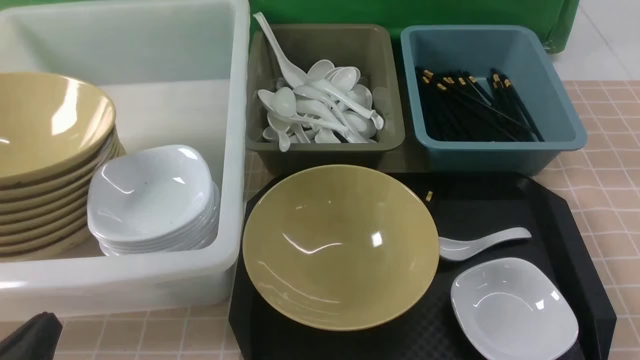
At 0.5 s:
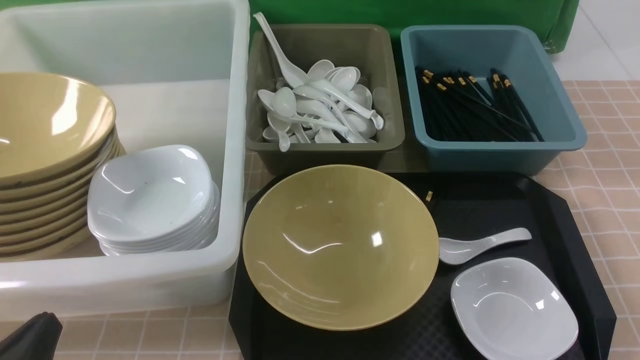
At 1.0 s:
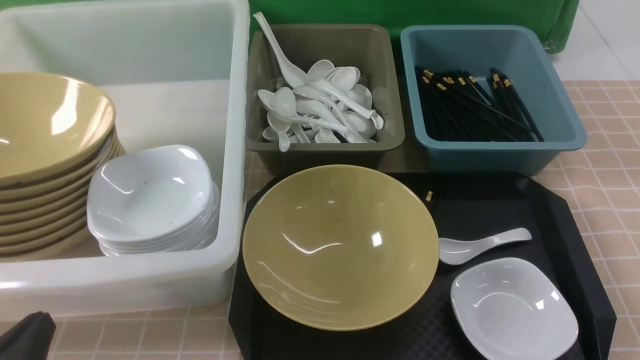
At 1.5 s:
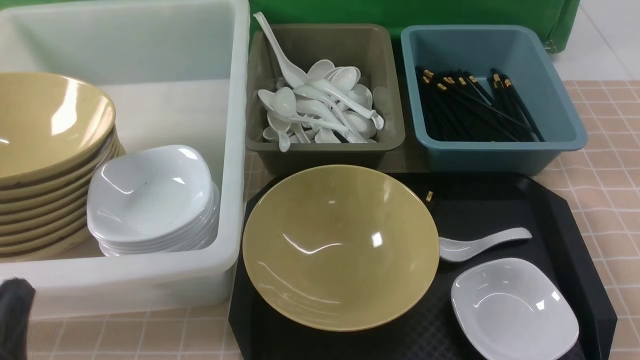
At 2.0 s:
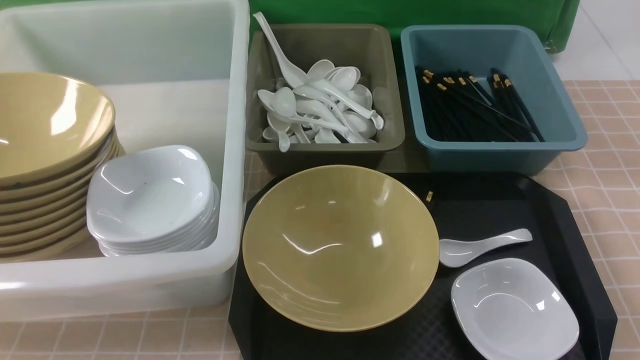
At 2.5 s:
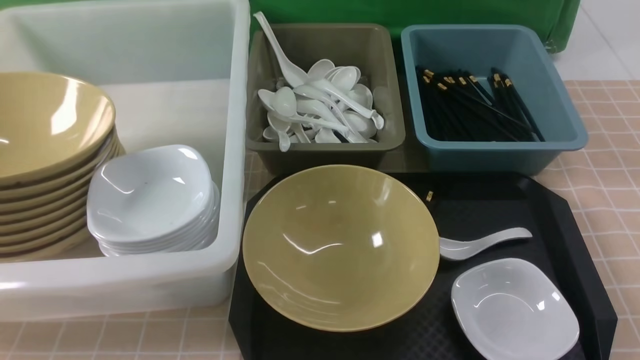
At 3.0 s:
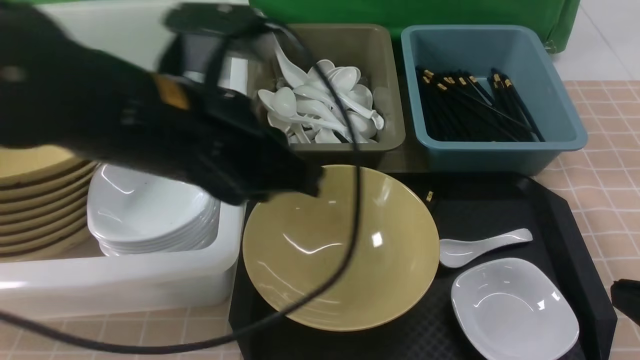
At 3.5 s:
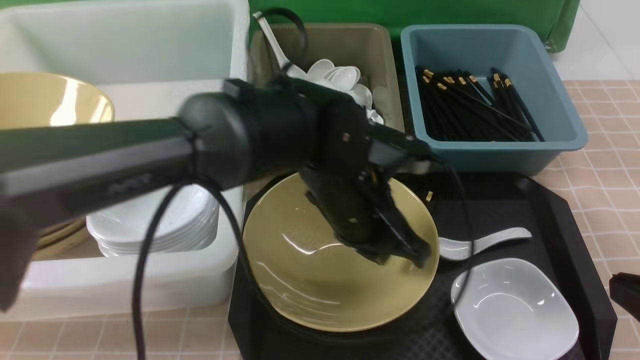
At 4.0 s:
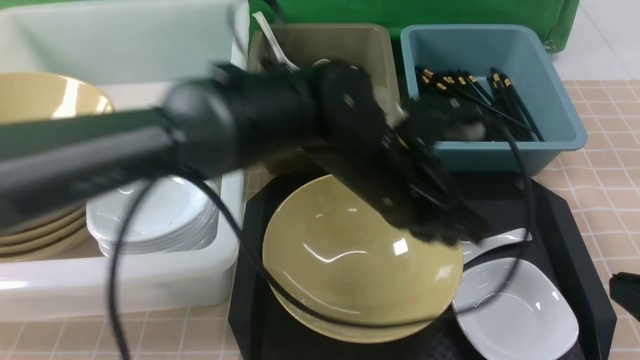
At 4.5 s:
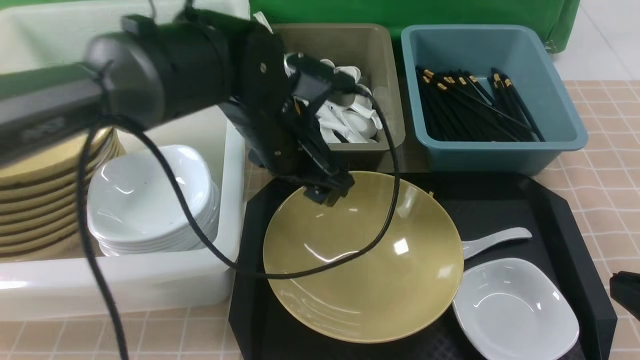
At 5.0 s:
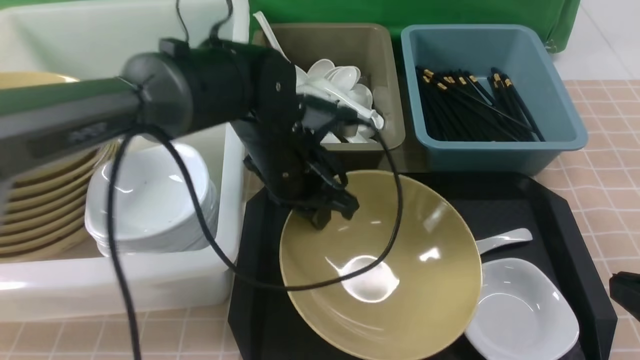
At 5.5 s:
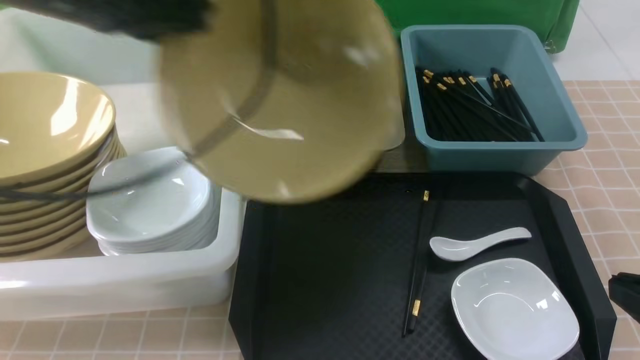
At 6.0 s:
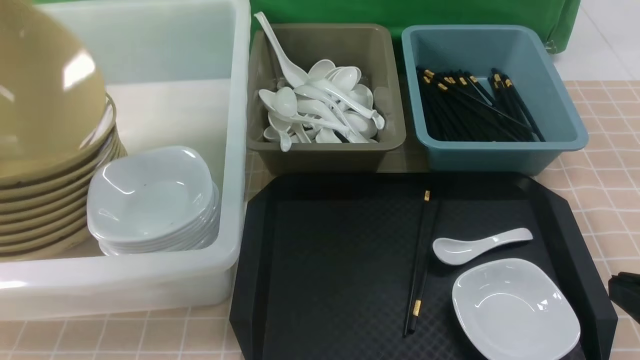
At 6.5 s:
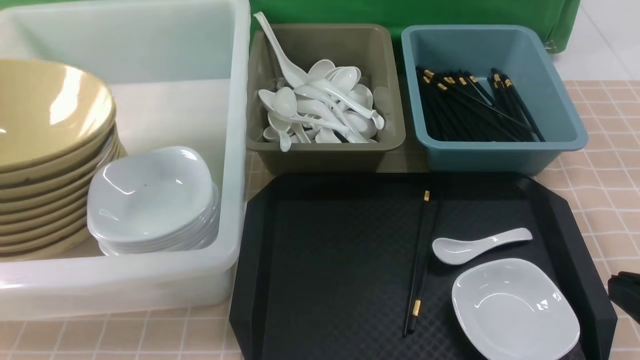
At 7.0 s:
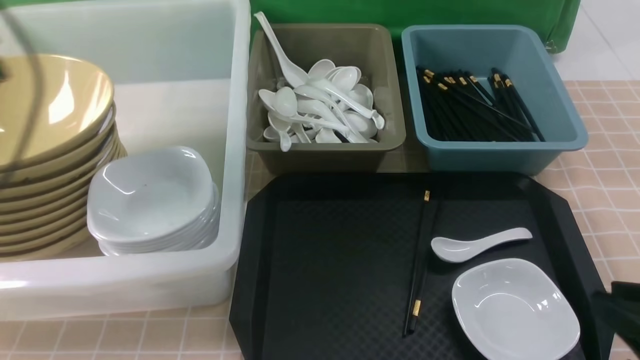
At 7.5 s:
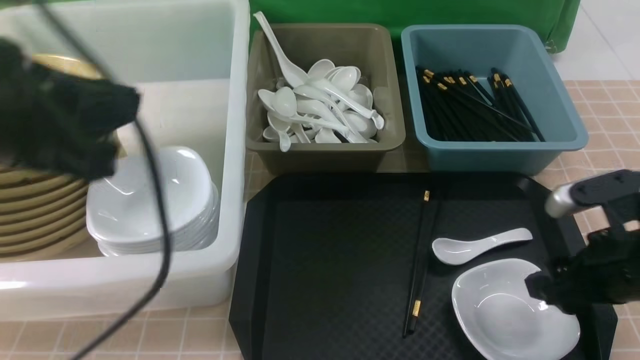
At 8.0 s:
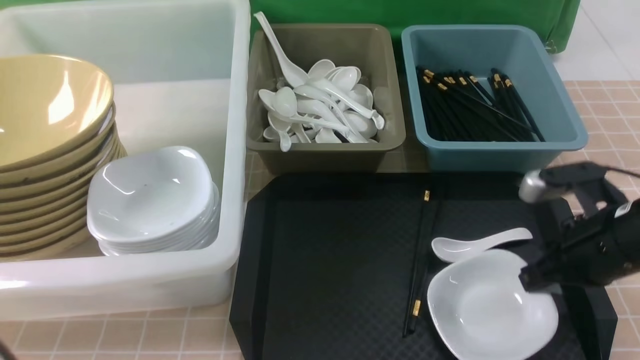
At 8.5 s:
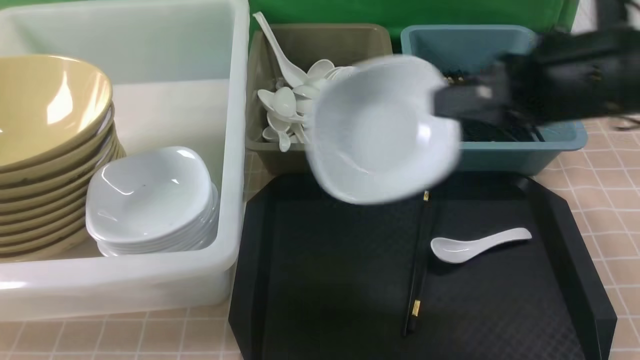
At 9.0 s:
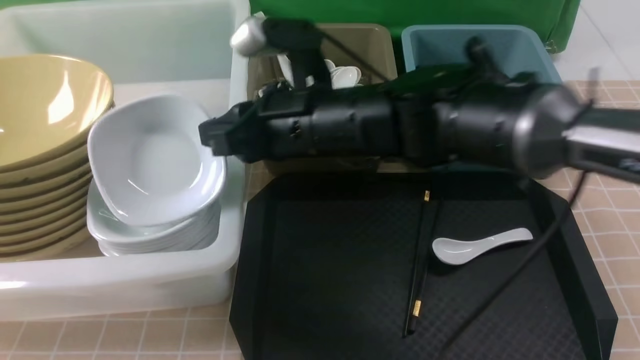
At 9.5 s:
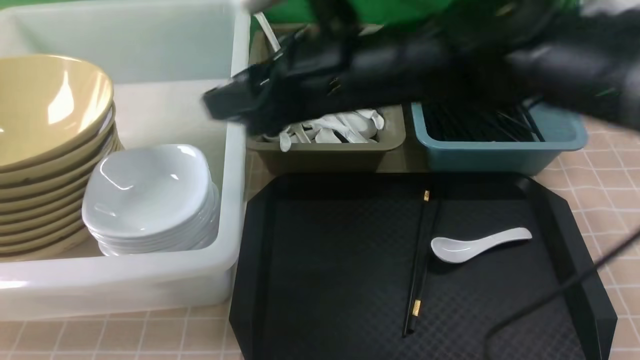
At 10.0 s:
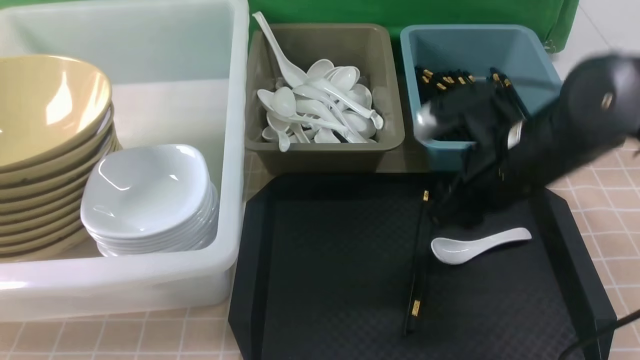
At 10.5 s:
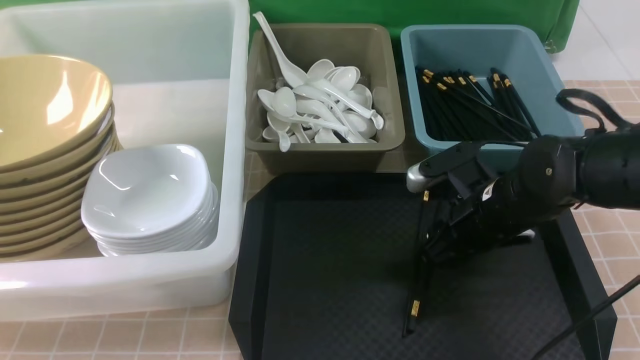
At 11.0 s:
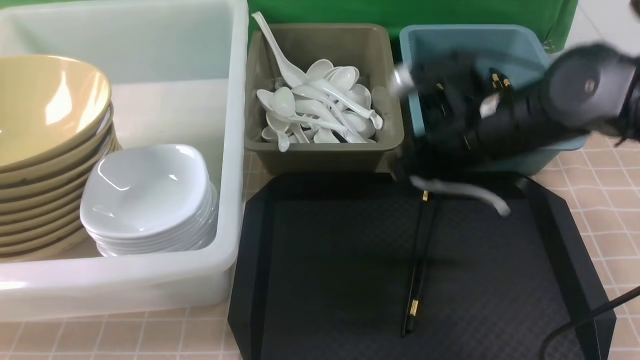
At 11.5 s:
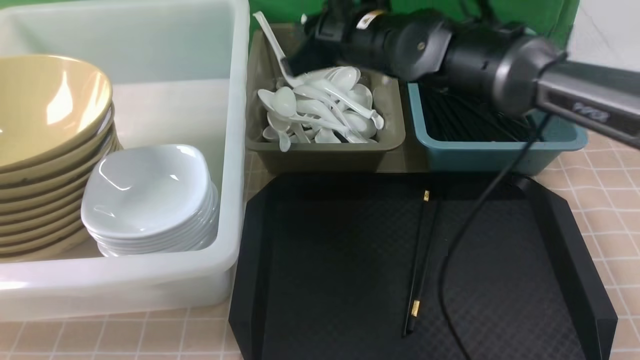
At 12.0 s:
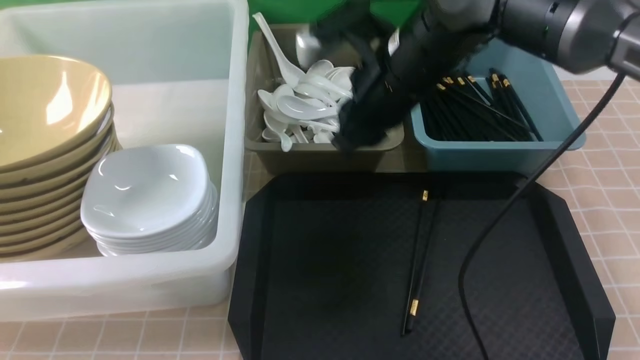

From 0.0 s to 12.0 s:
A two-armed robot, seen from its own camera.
Task of the whole recording: on brown table put chopsticks spoon bowls plates into blue grey white boxes.
Step, from 0.0 s to 4.5 s: use the left arm to grab the yellow noodle bowl on the left.
Step, from 5.0 s to 6.5 s: use the left arm to put the noodle bowl into the large storage box on the left.
Step, from 7.0 s to 8.0 s: use the right arm to grab the plate.
Step, from 8.5 s to 9.0 s: use the right arm to put the plate into the large storage box on the left.
Step, from 9.5 s to 10.5 s: use the right arm to grab the soup spoon in the middle.
Step, from 11.0 s to 11.5 s: use the right arm to put the soup spoon into the small storage box in the middle.
From 2.0 s to 4.0 s: The left gripper is displaced to the right and forward by about 40 cm; the right gripper is displaced forward by roughly 5 cm, reaches approximately 5 cm upward, then returns, and closes up.
From 4.0 s to 6.0 s: The left gripper travels to the left and upward by some 40 cm, and opens and closes again.
From 6.0 s to 8.0 s: The right gripper heads forward, covering about 15 cm, and opens and closes again, while the left gripper travels backward, downward and to the right by roughly 20 cm, and opens and closes again.
From 8.0 s to 10.0 s: The right gripper goes about 15 cm to the left, upward and forward, and opens its fingers; the left gripper travels downward by some 5 cm.
From 10.0 s to 12.0 s: The right gripper shifts about 10 cm to the left and forward, and travels downward and back again, approximately 10 cm each way.

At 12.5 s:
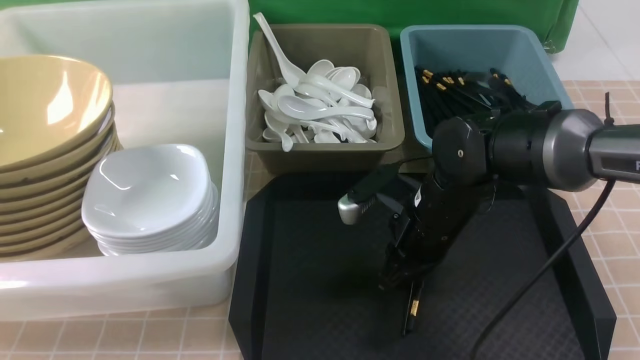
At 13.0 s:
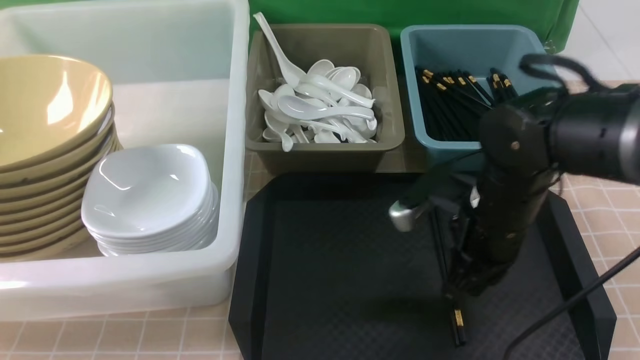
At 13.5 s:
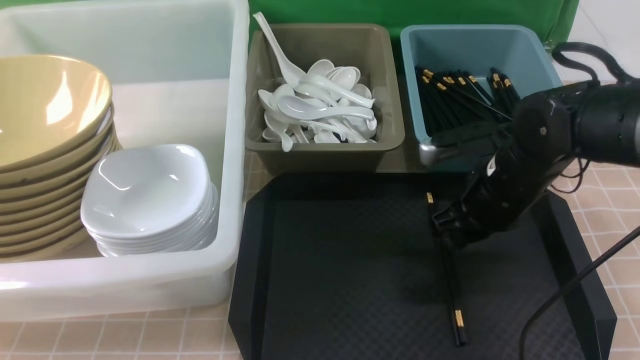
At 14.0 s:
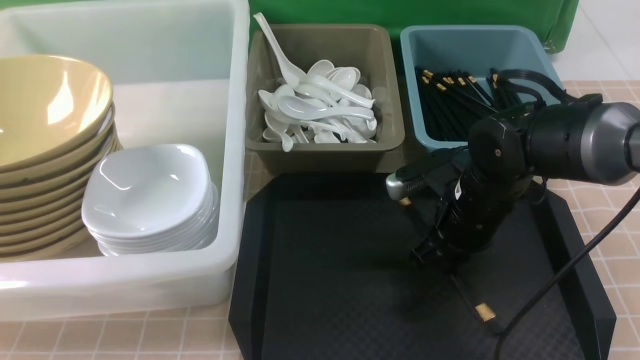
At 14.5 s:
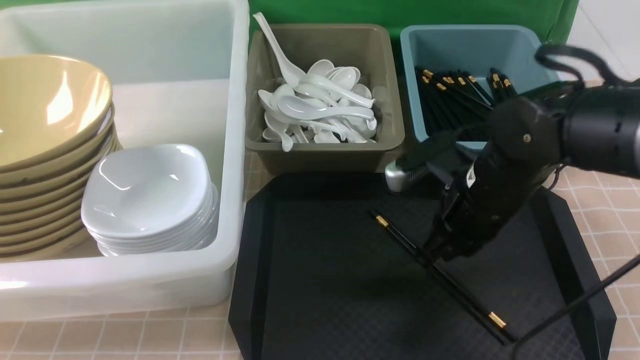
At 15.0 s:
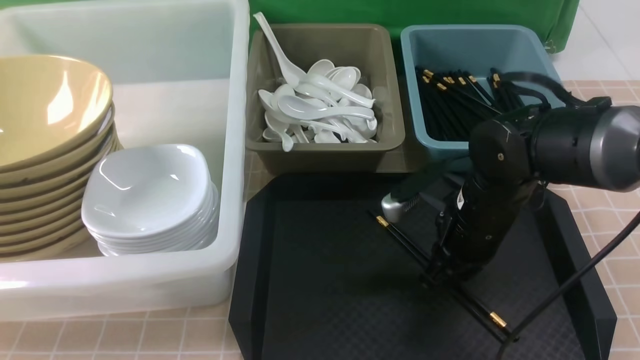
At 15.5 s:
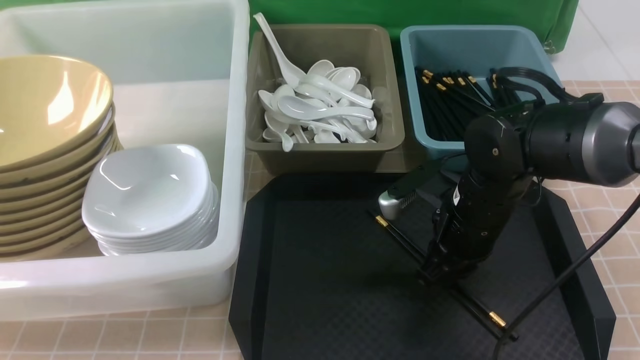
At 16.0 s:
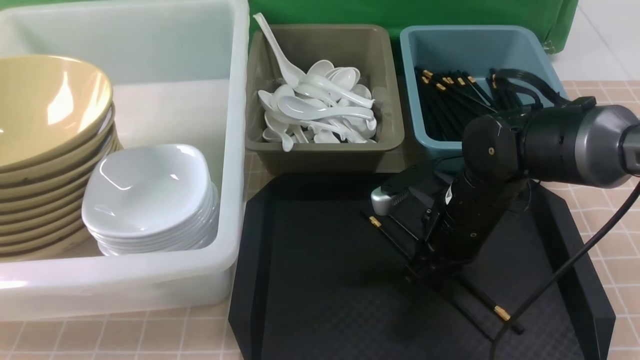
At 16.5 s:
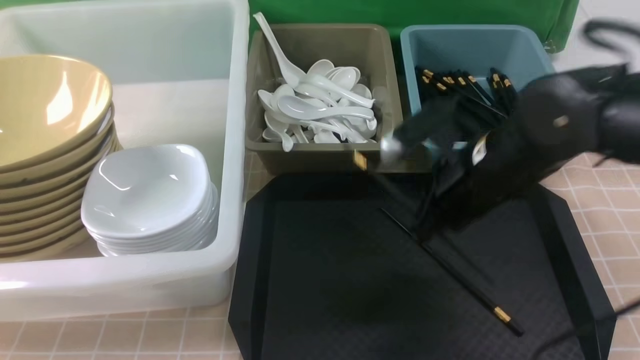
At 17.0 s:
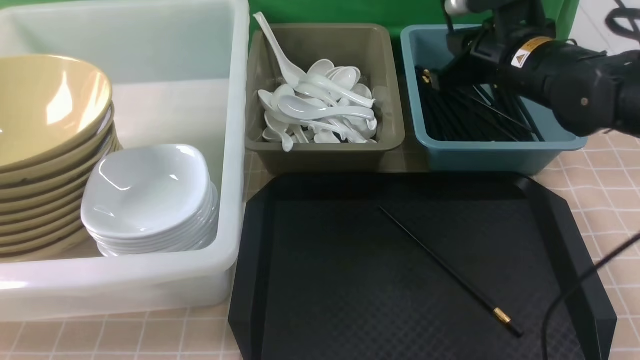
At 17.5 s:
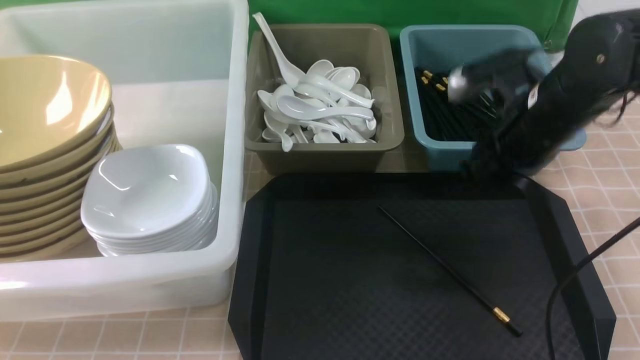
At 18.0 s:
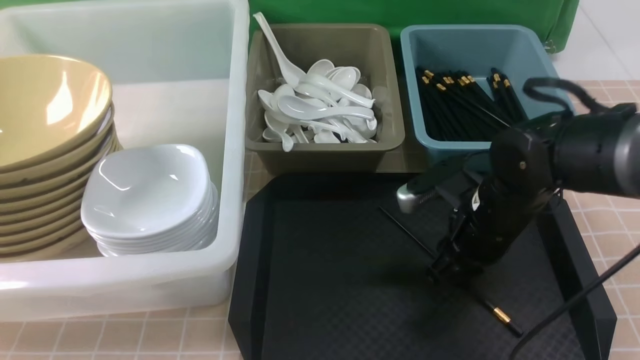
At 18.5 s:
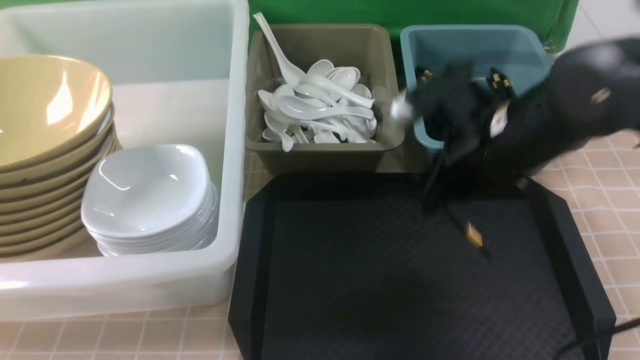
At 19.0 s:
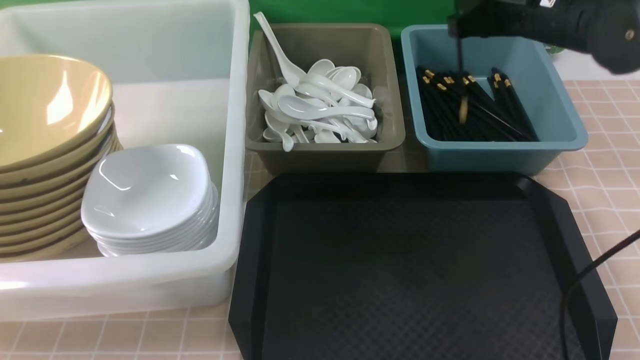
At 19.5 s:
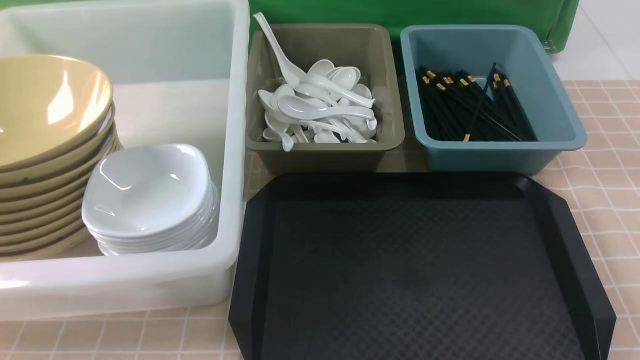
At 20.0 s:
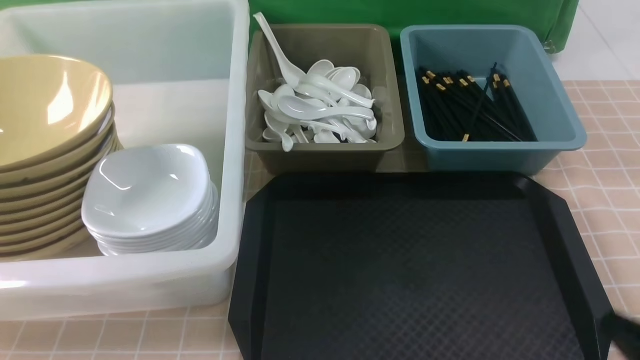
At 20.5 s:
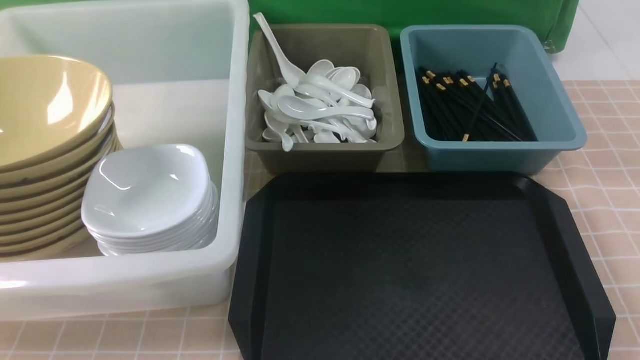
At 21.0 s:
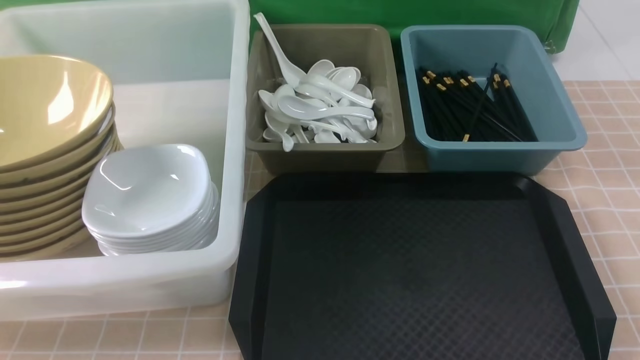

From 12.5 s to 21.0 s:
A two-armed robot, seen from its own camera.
Task of the whole recording: on brown table put chopsticks spoon bowls plates into blue grey white boxes.
Step, from 12.5 s to 16.0 s: use the right arm to grab a chopstick.
Step, from 16.5 s to 17.0 s: use the right arm to put a chopstick into the small storage box on the right.
Step, from 17.5 s to 18.0 s: use the right arm to grab a chopstick.
Step, from 18.5 s to 19.0 s: use the right arm to put a chopstick into the small storage box on the right.
From 12.5 s to 14.5 s: The right gripper opens, then closes once more.
From 14.5 s to 16.5 s: The grippers stay close to where they were, moving slightly.
From 16.5 s to 19.0 s: The right gripper moves up and down over roughly 15 cm, changing direction 2 times, and opens up.
From 19.0 s to 21.0 s: The right gripper travels backward and downward by approximately 35 cm, and closes its fingers.
